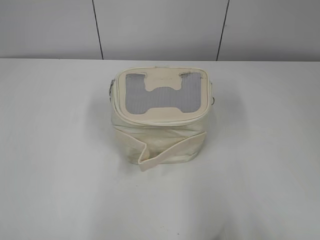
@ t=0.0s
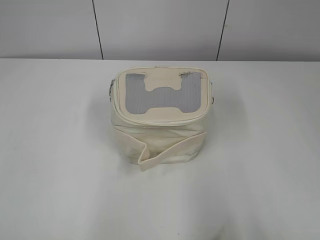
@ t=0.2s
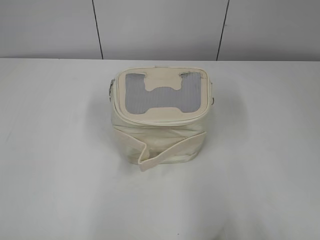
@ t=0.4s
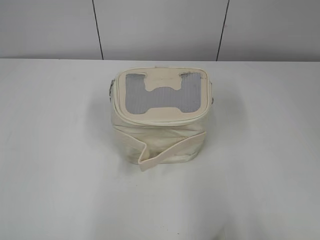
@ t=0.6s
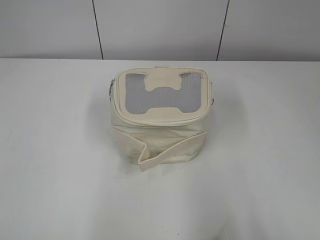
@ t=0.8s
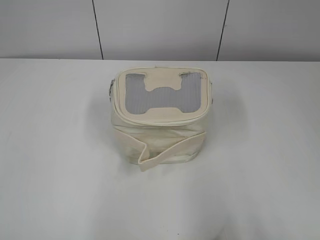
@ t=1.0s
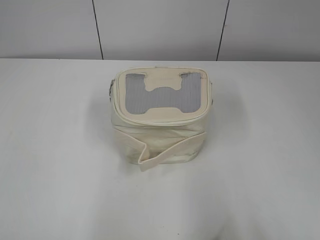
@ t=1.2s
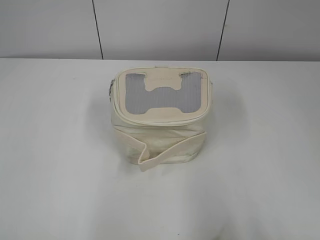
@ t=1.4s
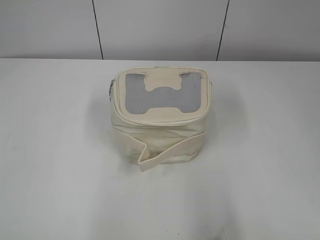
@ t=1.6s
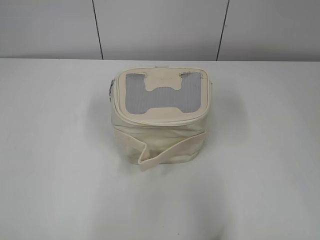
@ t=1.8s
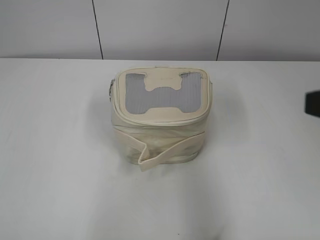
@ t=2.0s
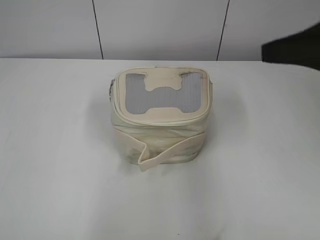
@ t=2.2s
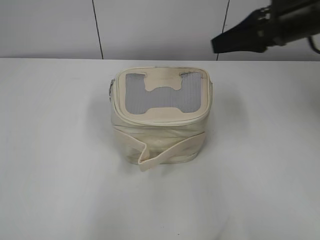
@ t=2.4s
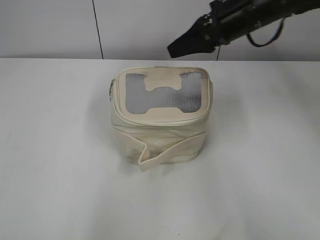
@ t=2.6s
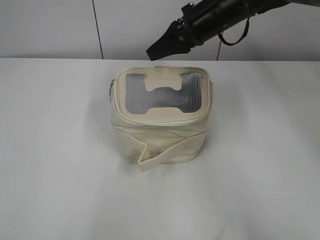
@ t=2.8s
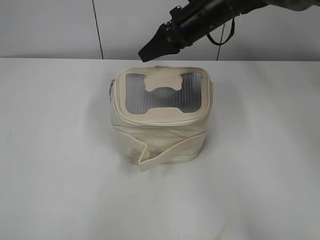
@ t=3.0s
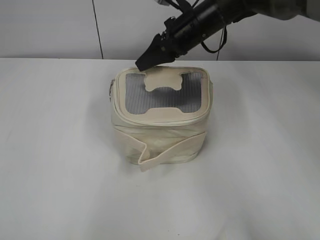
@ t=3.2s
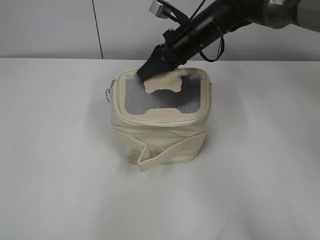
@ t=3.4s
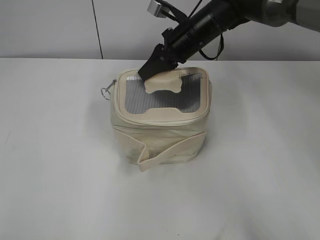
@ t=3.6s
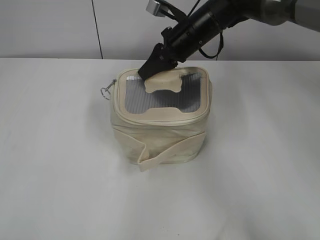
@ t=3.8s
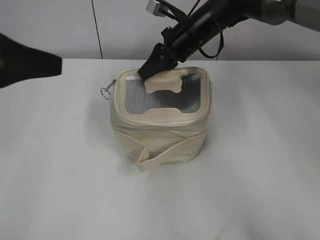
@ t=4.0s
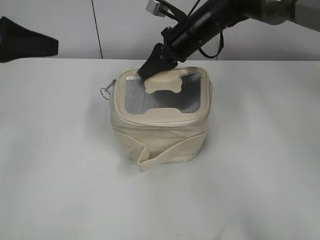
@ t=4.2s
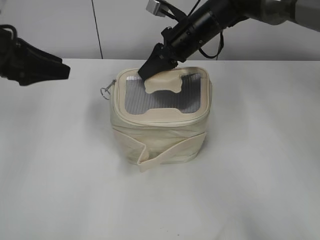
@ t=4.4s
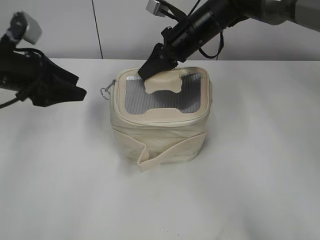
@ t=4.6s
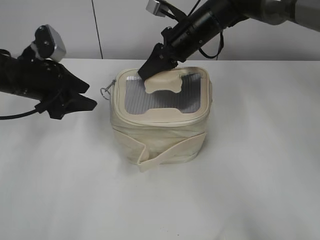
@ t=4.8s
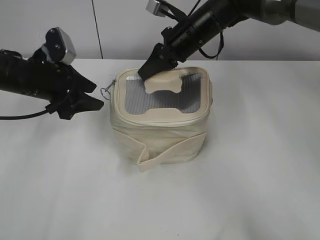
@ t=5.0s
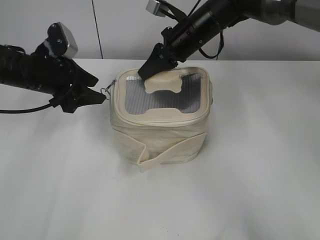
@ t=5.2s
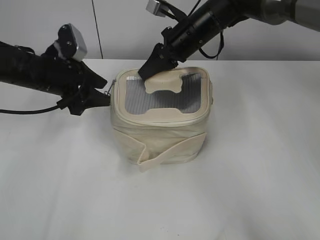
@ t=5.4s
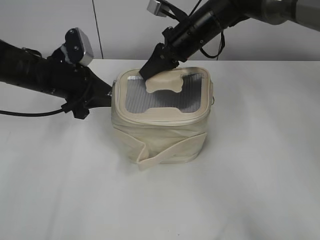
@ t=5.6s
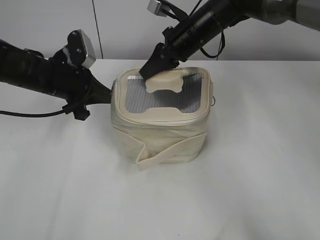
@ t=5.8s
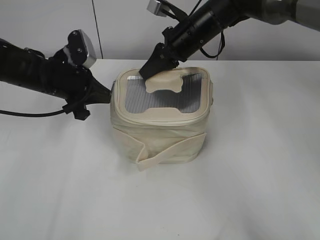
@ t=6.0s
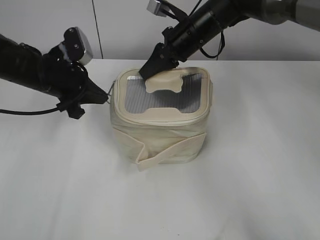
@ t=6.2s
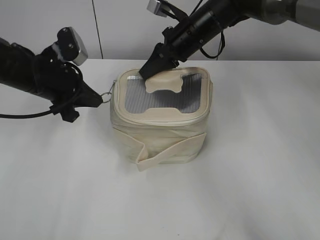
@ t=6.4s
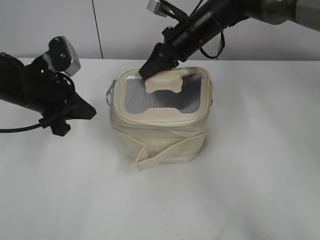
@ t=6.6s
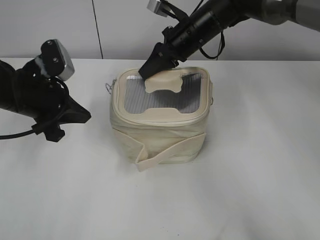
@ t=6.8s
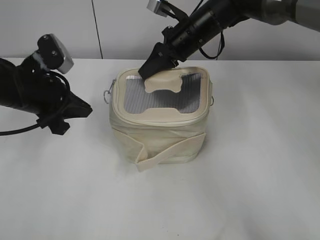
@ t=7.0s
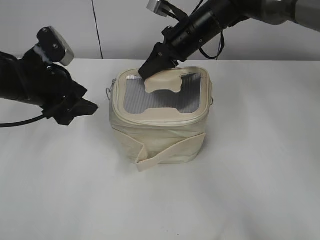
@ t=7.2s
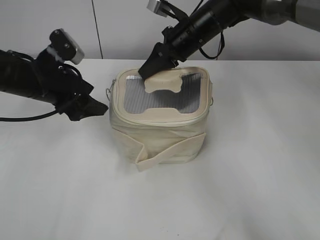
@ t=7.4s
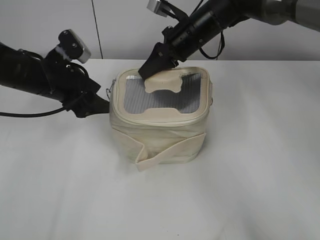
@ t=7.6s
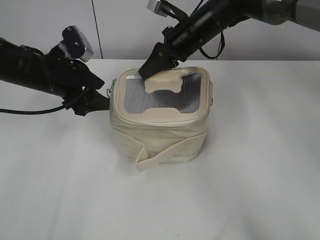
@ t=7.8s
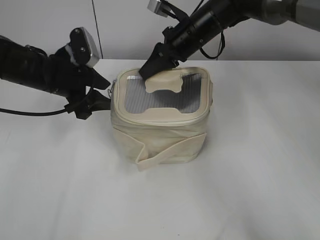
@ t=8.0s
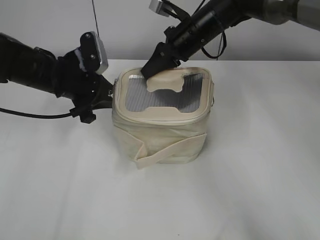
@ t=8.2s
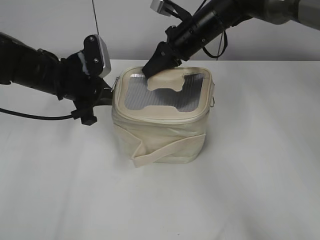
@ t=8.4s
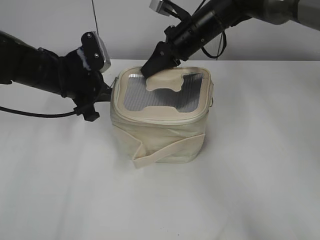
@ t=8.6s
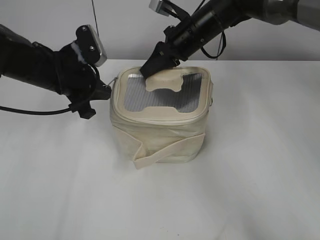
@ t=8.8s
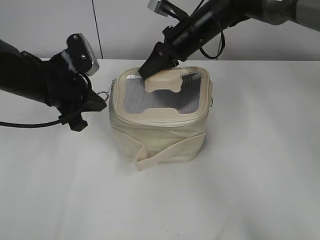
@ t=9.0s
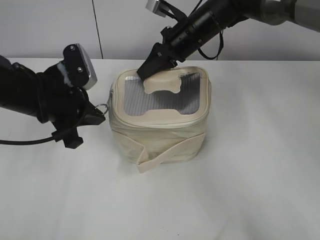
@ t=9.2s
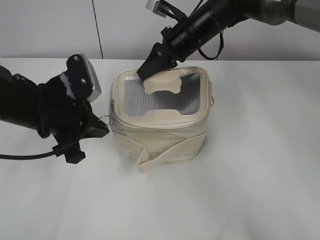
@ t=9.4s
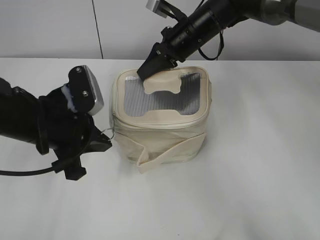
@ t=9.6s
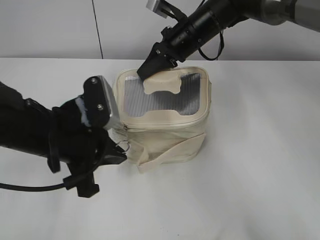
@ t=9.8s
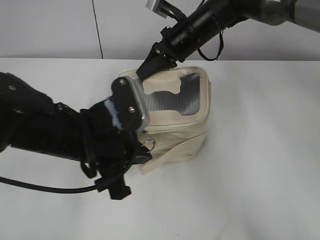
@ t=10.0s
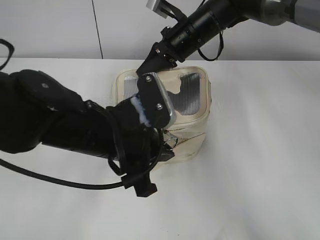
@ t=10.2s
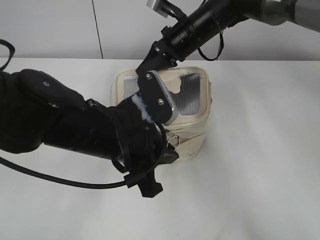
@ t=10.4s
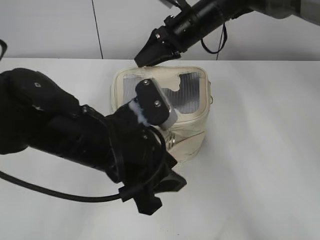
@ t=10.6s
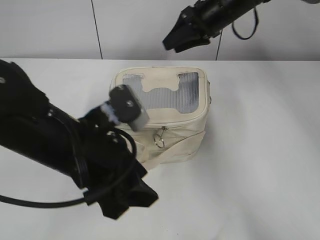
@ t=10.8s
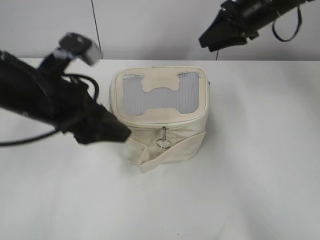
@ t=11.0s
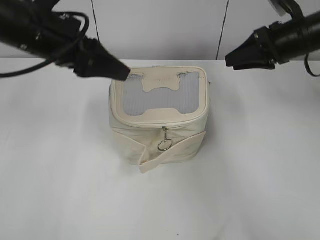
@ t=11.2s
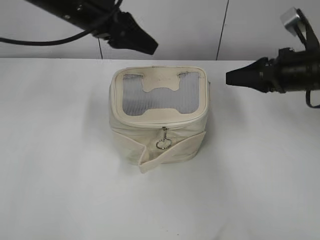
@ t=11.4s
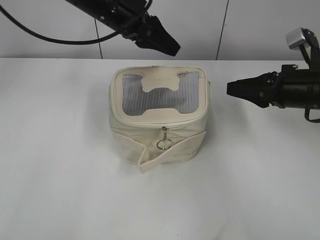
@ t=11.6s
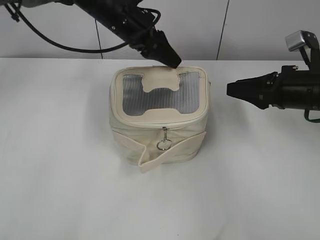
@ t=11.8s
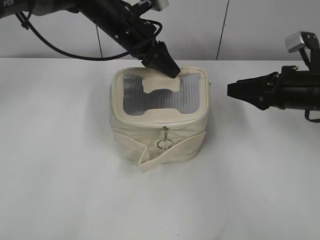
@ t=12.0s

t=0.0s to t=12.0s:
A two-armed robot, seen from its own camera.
Step, t=0.0s to t=10.4s: Zip up the bag with your left hand.
t=1.6s to t=3.0s: The right gripper travels forward and to the left by about 50 cm.
t=3.0s to t=4.4s: The right gripper closes up. The left gripper heads forward, covering approximately 30 cm, and opens up.
t=4.4s to t=6.0s: The left gripper is displaced downward and to the right by about 10 cm, and closes up.
t=6.0s to t=7.6s: The left gripper opens its fingers.
t=7.6s to t=9.0s: The left gripper closes up.
t=9.0s to t=10.4s: The left gripper moves backward and to the right, roughly 15 cm.
t=10.4s to t=12.0s: The right gripper shifts about 25 cm to the right and backward, and opens its fingers; the left gripper is displaced forward by about 25 cm, and opens its fingers.

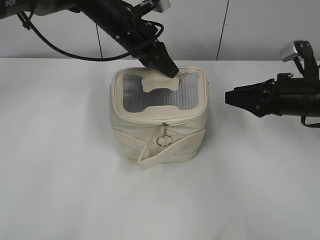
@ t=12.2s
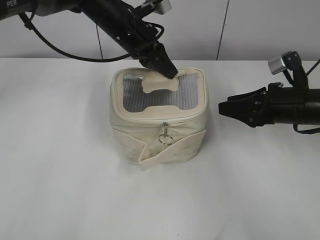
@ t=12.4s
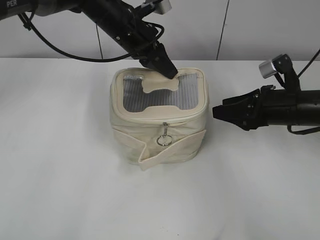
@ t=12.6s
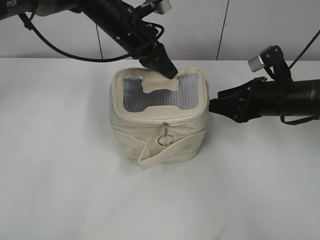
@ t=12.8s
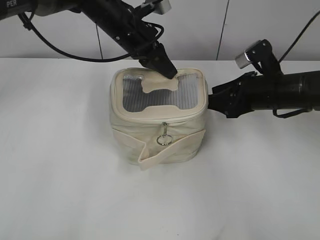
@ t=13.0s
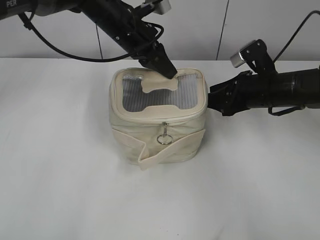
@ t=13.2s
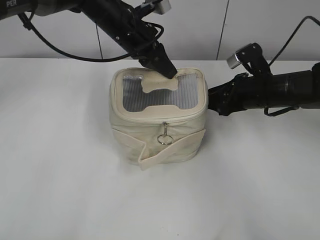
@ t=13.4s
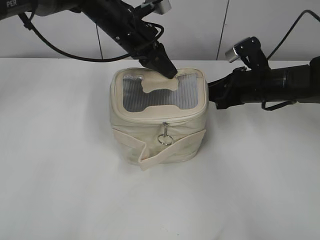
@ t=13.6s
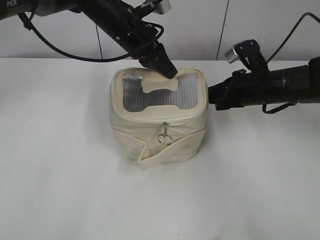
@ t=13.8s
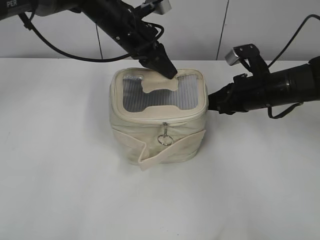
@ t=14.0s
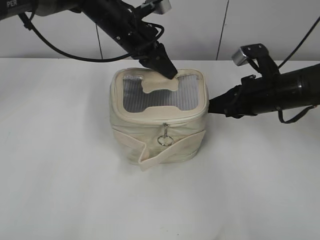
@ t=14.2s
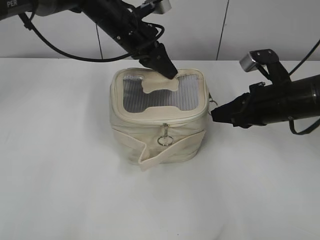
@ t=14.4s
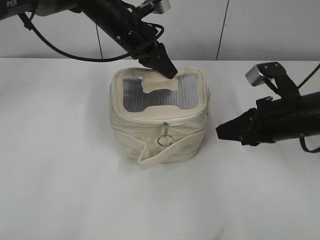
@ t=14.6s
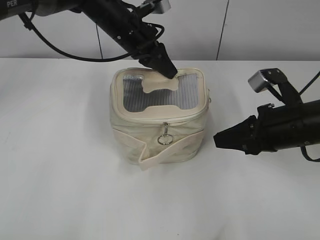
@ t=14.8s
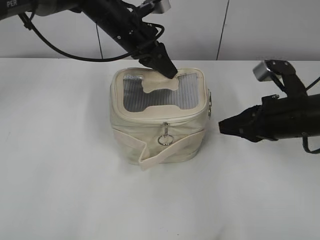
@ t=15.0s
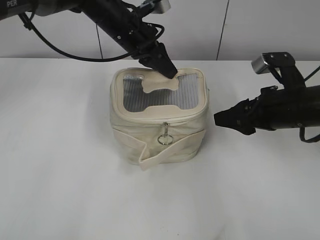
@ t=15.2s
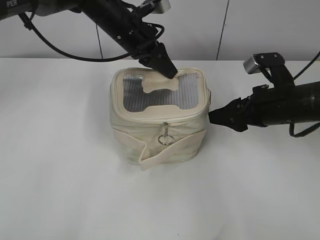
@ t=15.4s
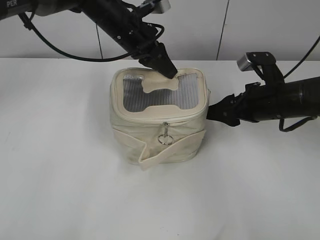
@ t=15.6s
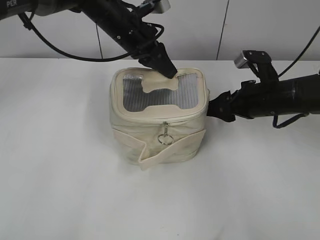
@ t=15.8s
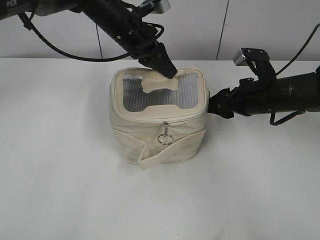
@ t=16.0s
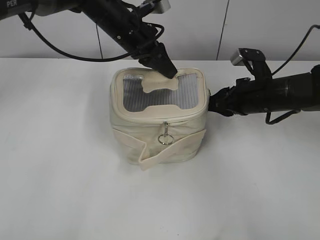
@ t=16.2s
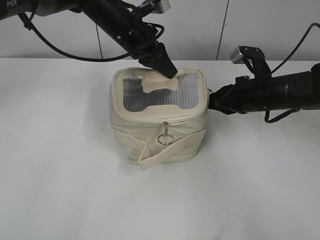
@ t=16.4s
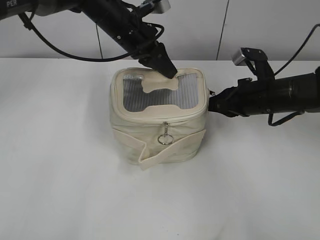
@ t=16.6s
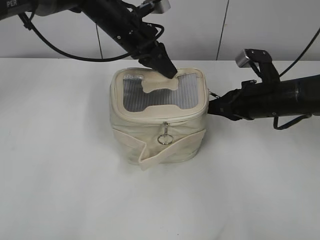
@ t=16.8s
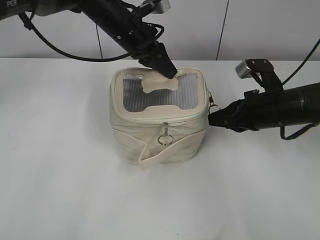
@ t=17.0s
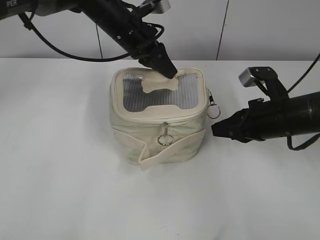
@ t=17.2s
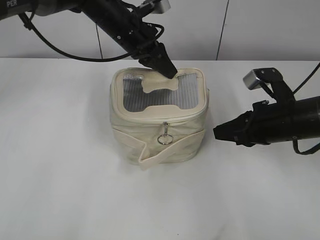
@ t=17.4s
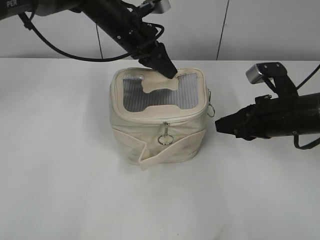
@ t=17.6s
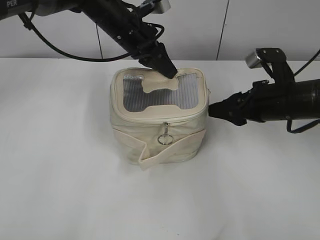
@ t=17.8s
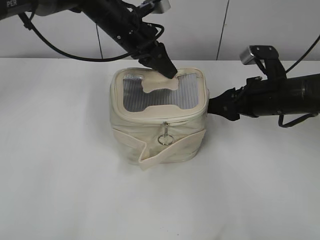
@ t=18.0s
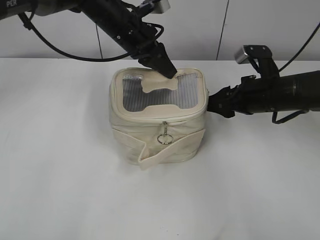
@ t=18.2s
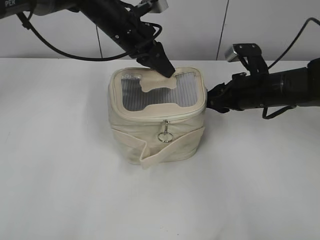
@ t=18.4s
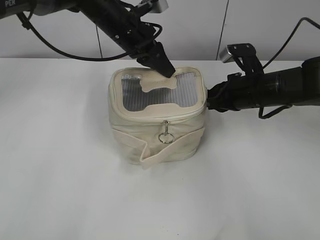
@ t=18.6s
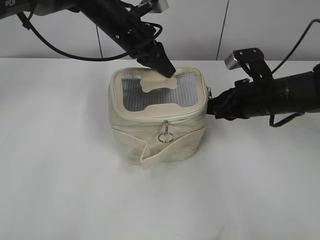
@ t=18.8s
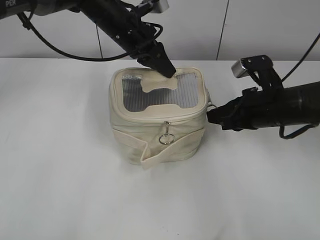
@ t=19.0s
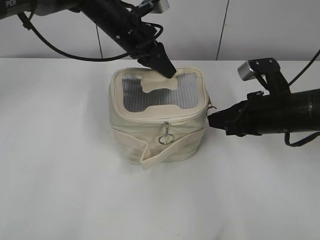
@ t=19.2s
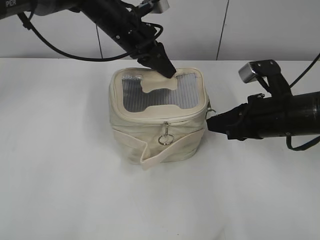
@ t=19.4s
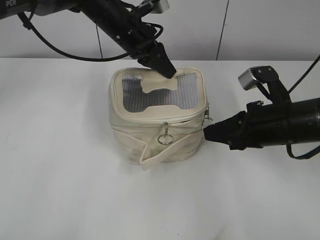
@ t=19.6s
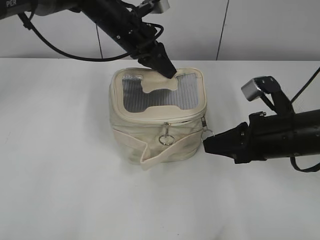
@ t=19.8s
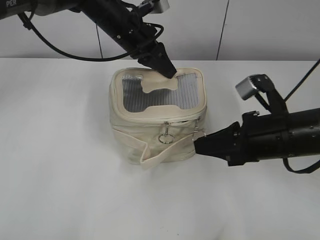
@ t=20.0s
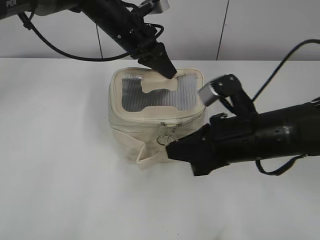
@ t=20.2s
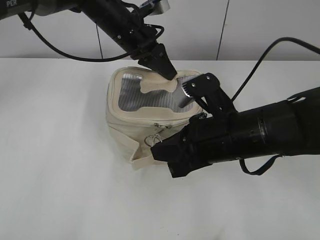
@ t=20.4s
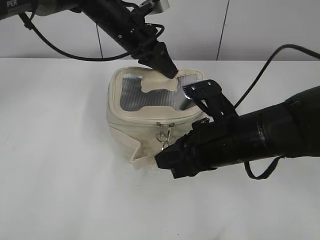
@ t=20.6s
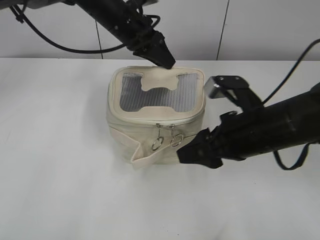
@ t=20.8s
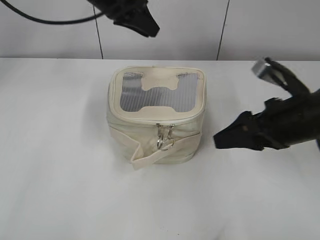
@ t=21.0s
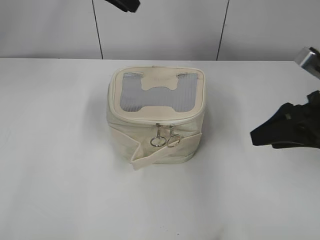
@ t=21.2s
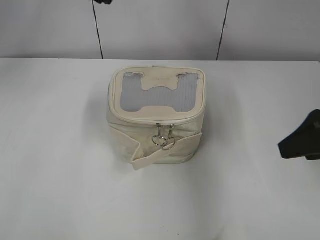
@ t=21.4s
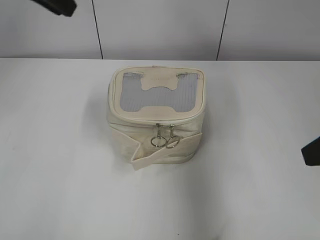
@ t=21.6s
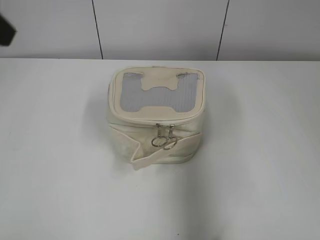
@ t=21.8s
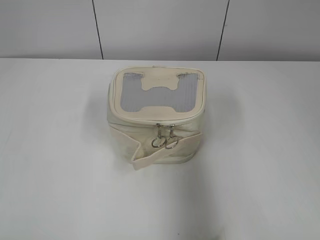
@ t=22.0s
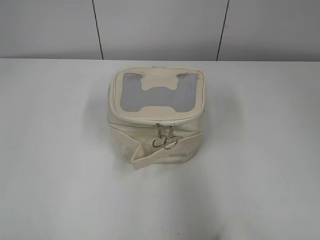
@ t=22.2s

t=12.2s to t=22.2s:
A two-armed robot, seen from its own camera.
Step, t=12.2s to t=20.6s: Zip up the bag with your right hand.
t=12.2s to t=13.6s: The right gripper is displaced forward and to the left by approximately 5 cm. The left gripper closes its fingers.
t=13.6s to t=15.0s: The right gripper is displaced backward by roughly 10 cm, and closes.
t=15.0s to t=16.4s: The right gripper goes roughly 10 cm forward, and opens and closes again.
t=16.4s to t=18.0s: The right gripper opens its fingers.
t=18.0s to t=19.4s: The right gripper closes its fingers.
t=19.4s to t=20.8s: The right gripper shifts about 5 cm to the left, and opens up.
t=20.8s to t=22.2s: The left gripper shifts some 50 cm backward and to the left, and opens its fingers, while the right gripper travels backward, upward and to the right by roughly 30 cm.
